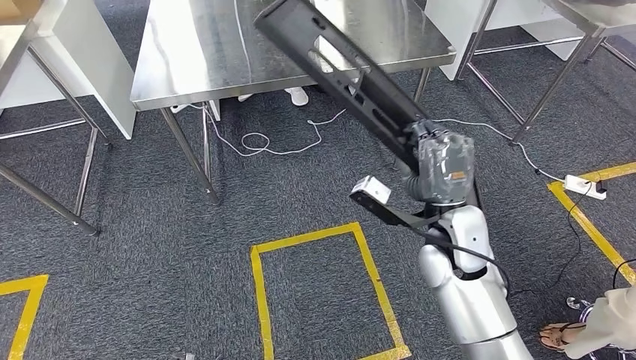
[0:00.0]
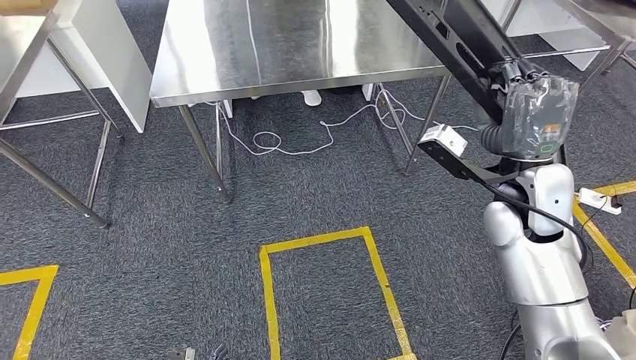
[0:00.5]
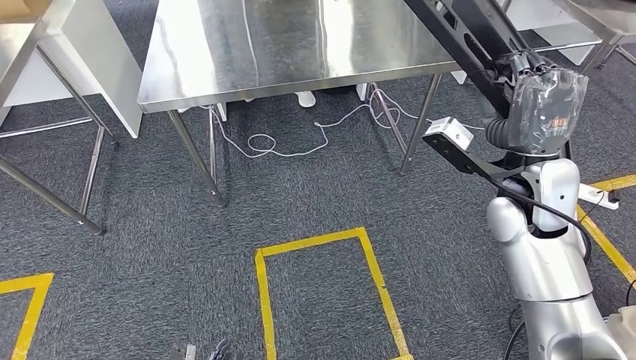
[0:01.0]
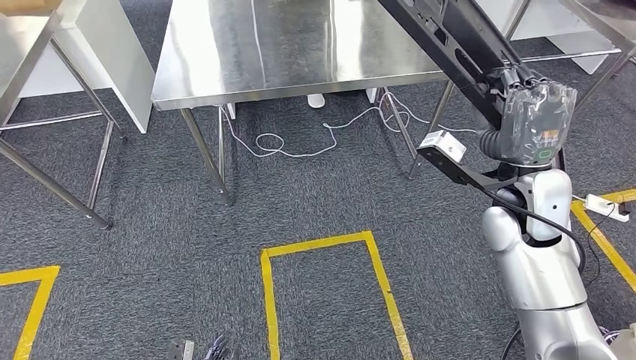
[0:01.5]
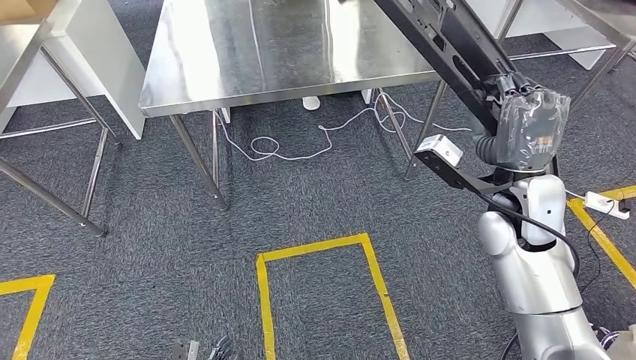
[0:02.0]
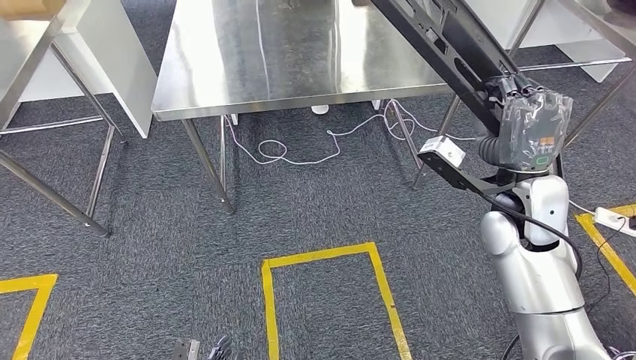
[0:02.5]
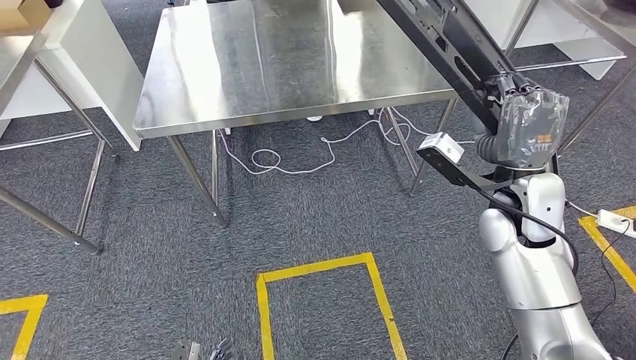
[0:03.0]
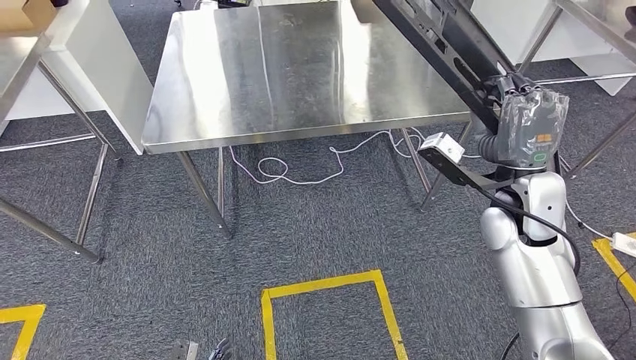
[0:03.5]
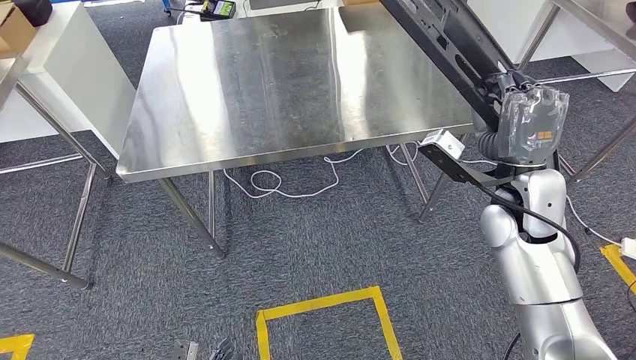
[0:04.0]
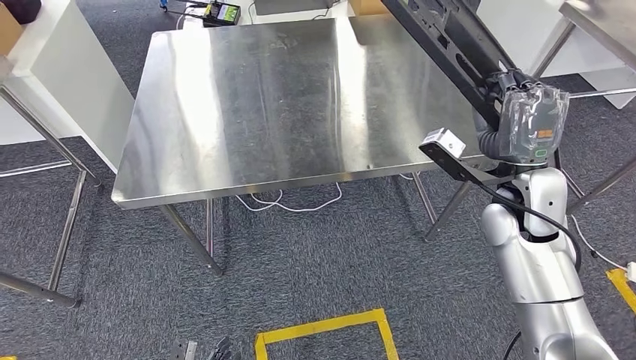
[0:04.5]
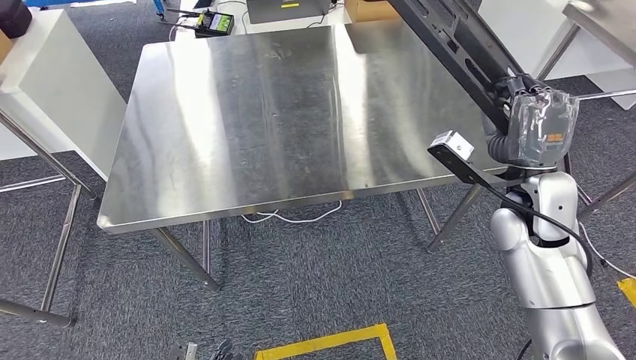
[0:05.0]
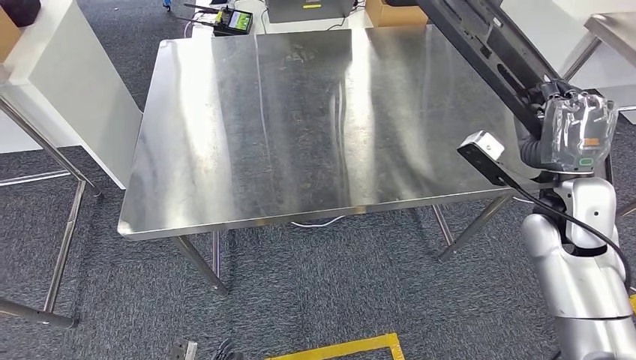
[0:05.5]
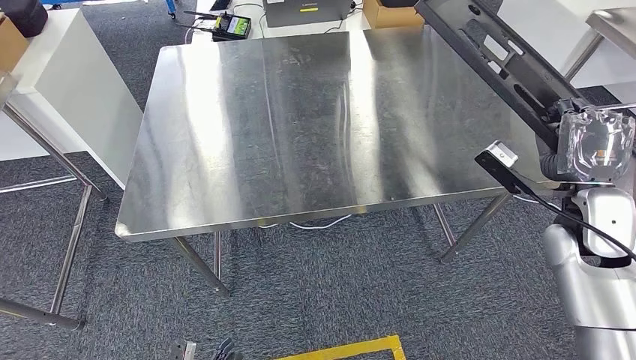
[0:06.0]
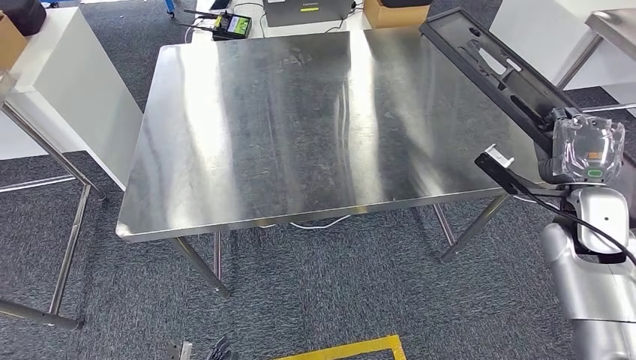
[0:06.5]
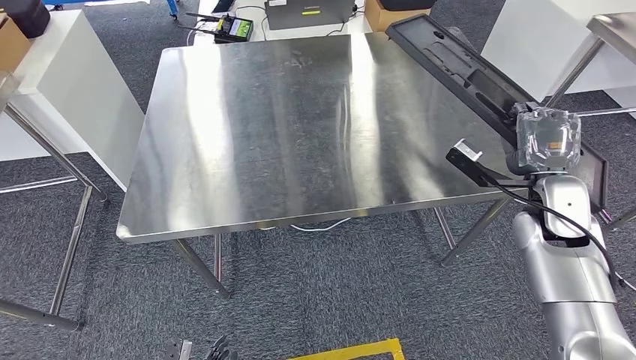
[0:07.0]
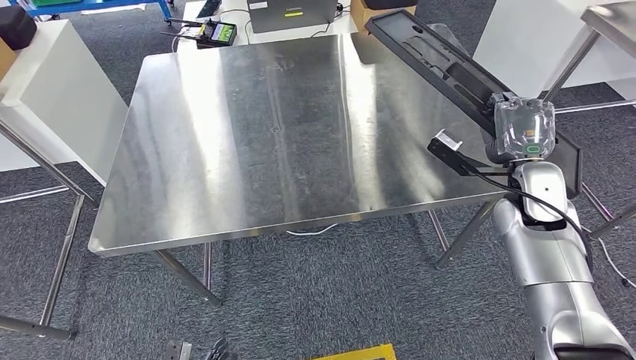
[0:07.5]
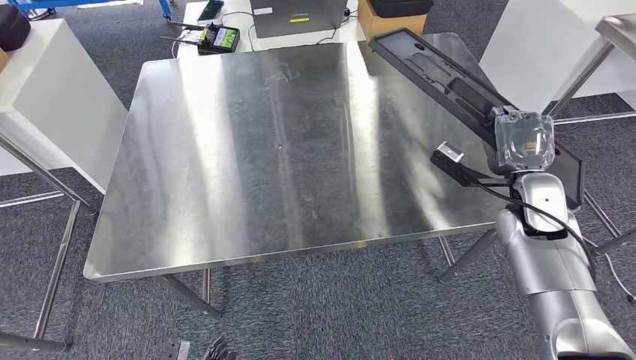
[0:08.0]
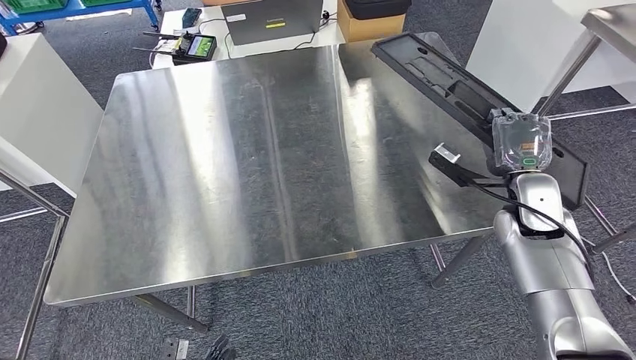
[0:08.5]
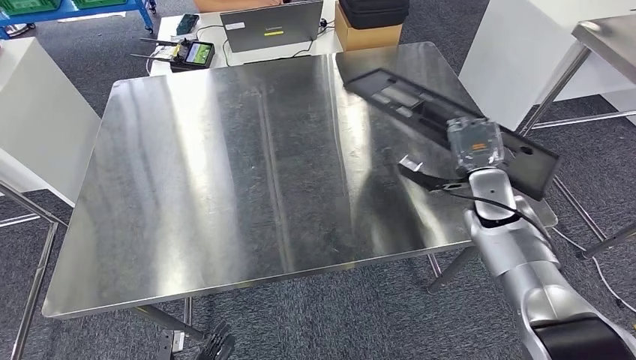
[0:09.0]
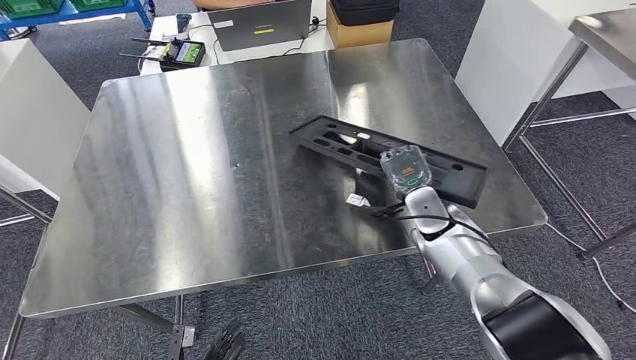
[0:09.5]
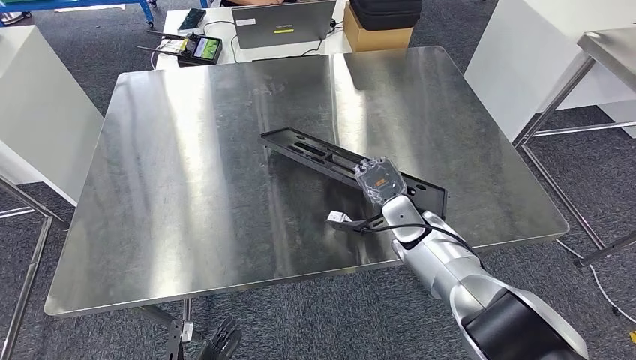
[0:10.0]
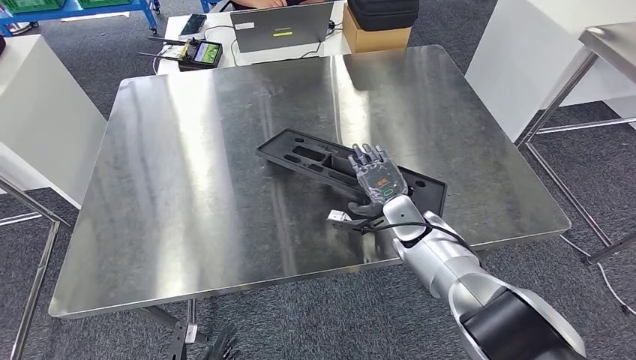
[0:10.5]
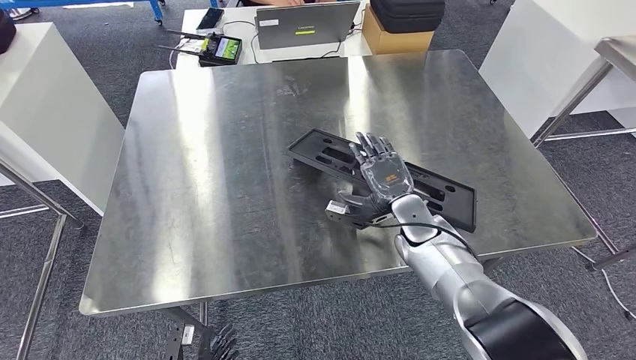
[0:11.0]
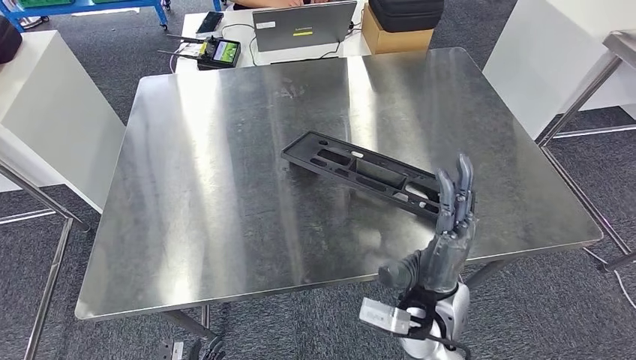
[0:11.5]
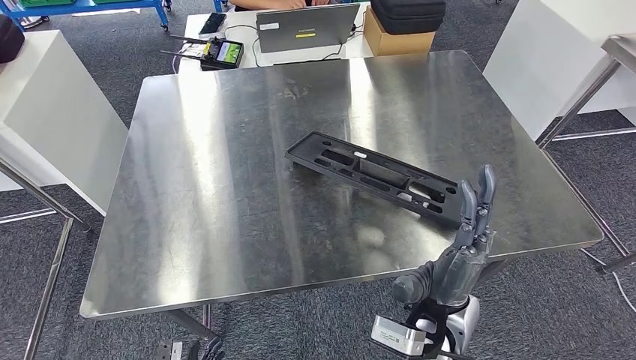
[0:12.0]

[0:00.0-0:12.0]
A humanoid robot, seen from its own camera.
Step, 0:00.0 to 0:04.5: Move the large material to the workbench.

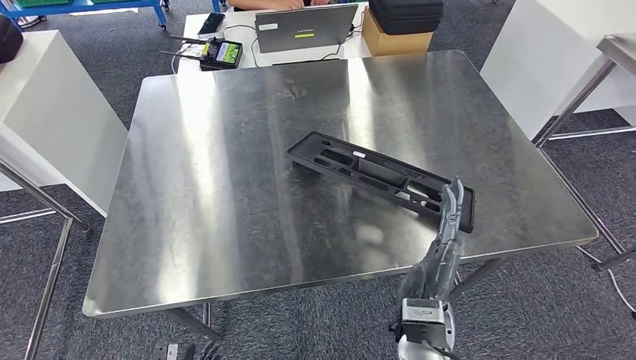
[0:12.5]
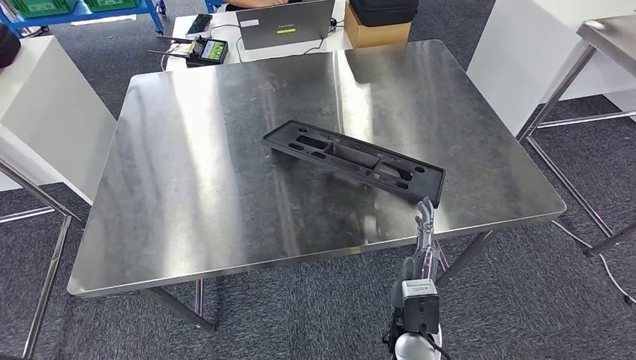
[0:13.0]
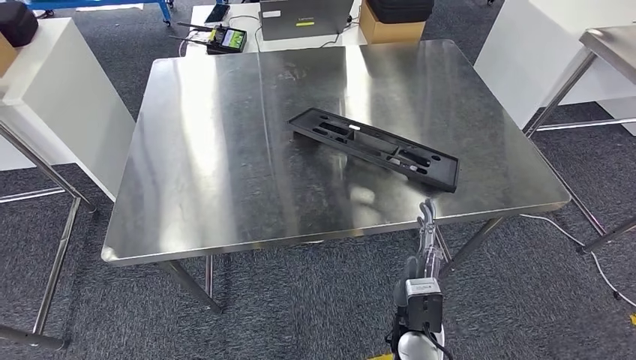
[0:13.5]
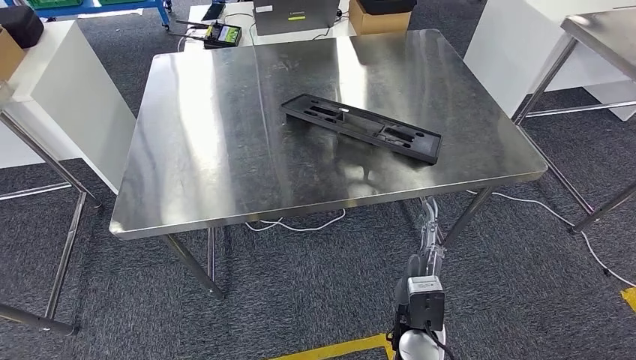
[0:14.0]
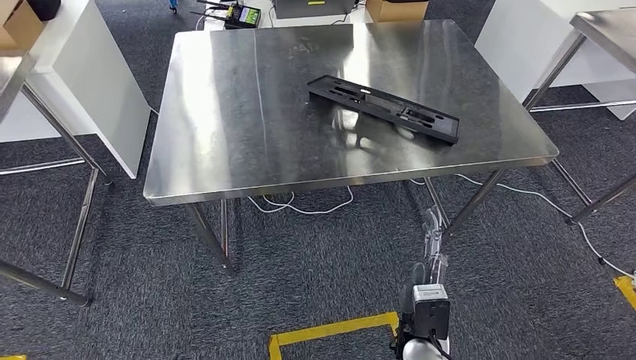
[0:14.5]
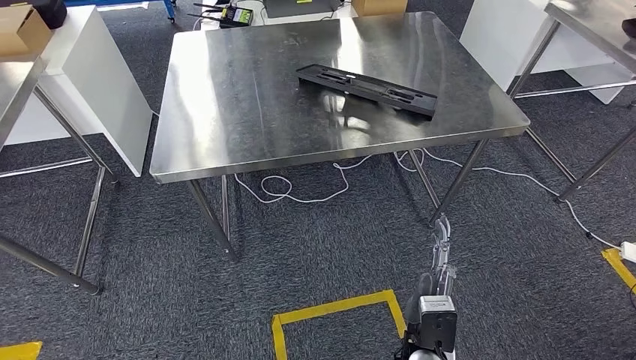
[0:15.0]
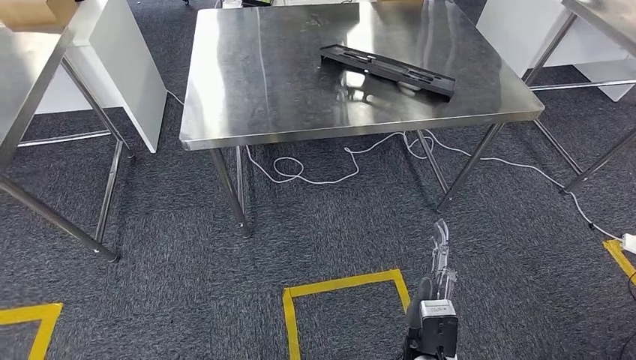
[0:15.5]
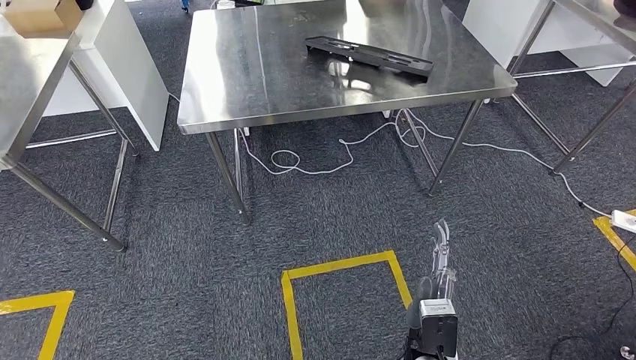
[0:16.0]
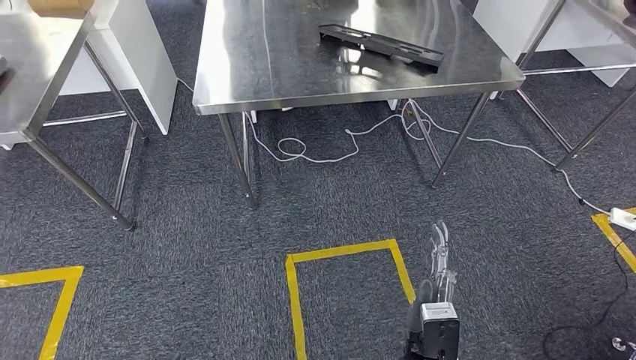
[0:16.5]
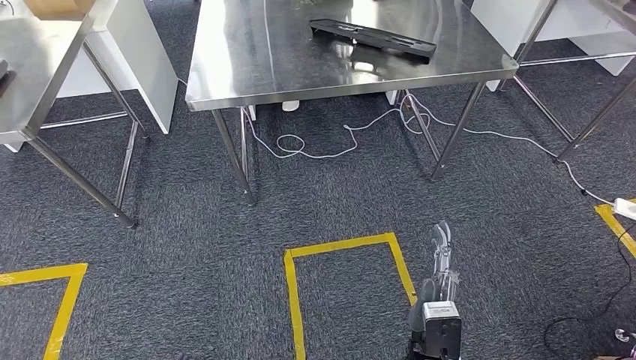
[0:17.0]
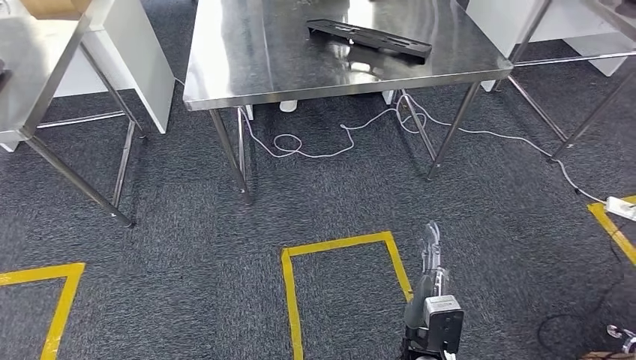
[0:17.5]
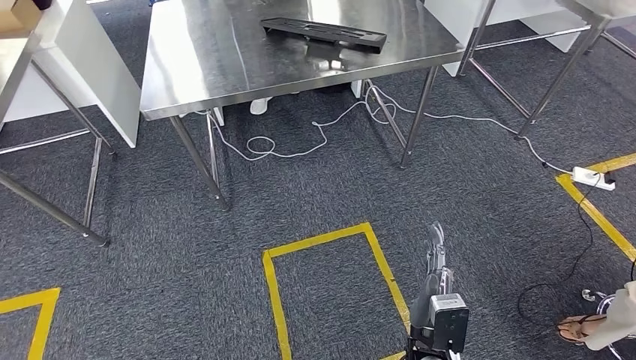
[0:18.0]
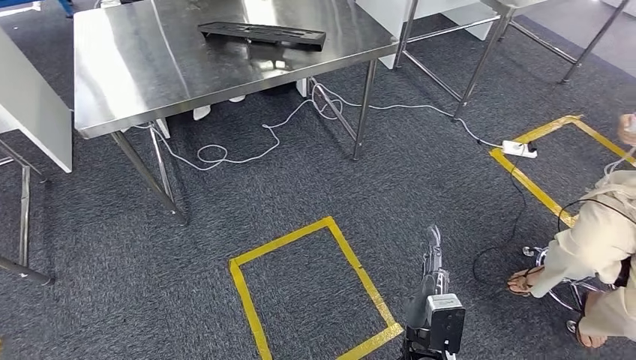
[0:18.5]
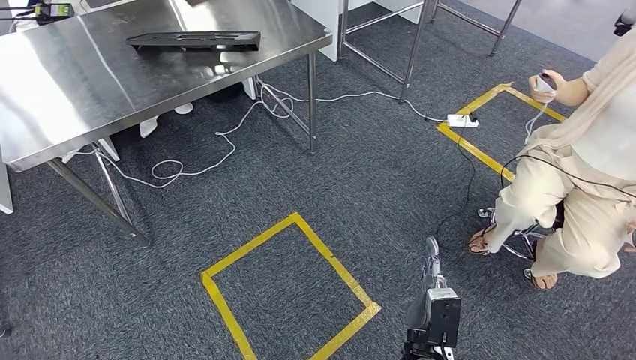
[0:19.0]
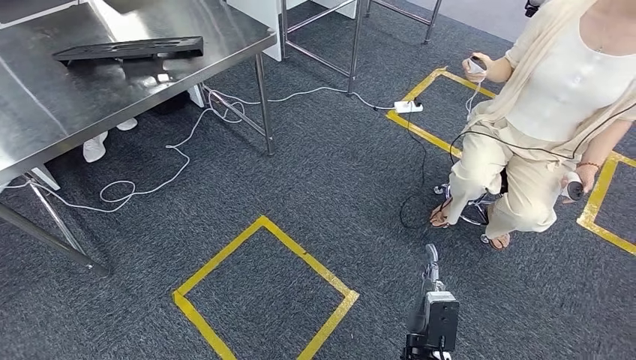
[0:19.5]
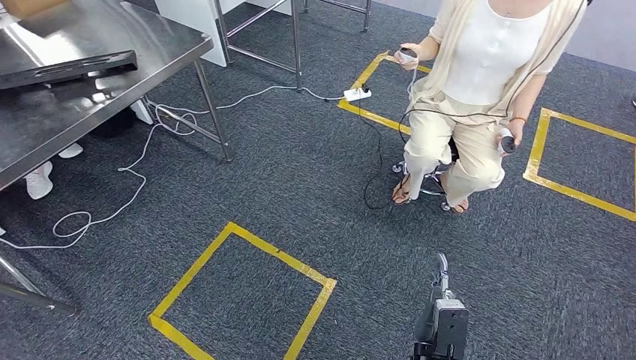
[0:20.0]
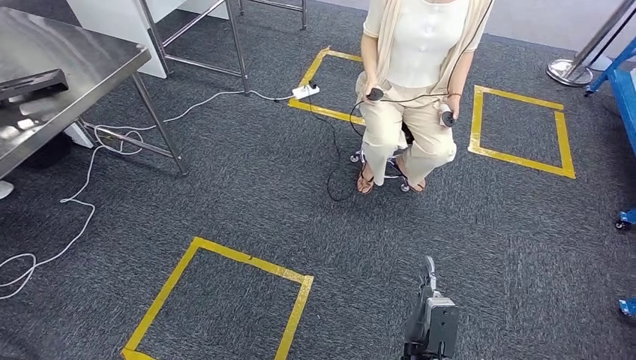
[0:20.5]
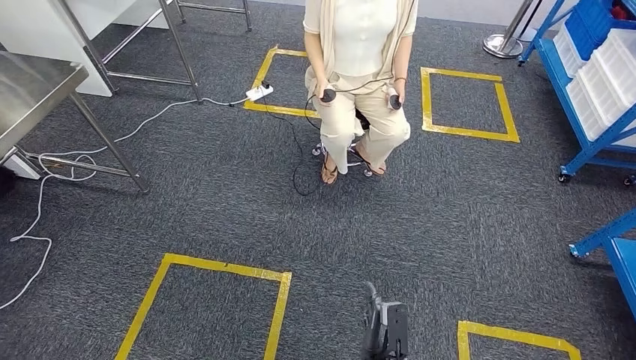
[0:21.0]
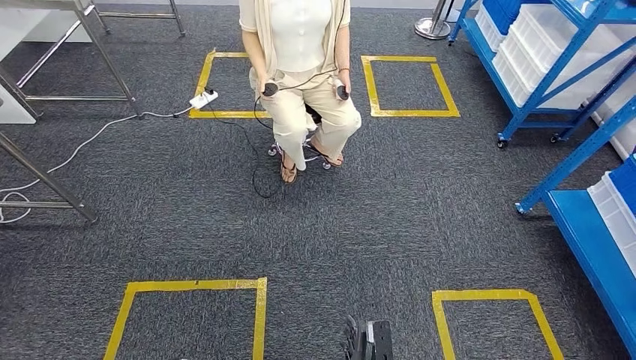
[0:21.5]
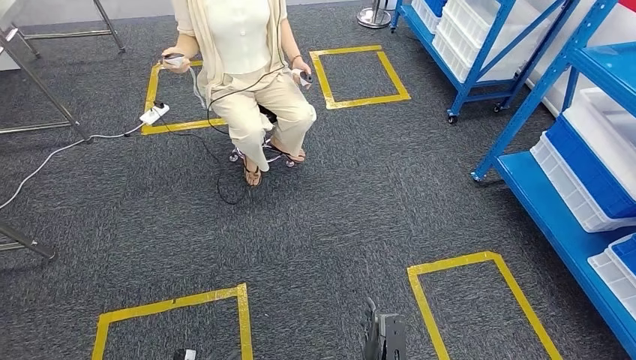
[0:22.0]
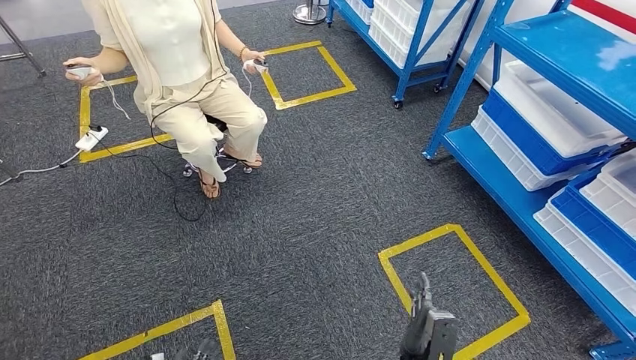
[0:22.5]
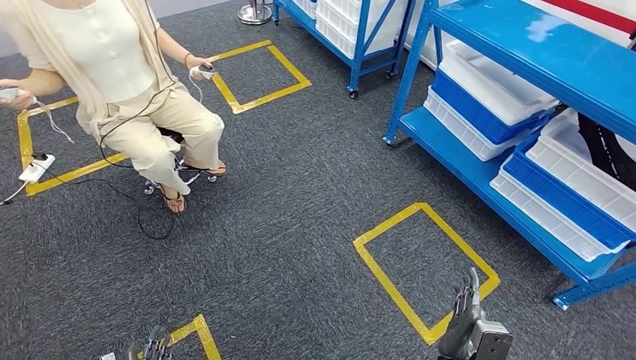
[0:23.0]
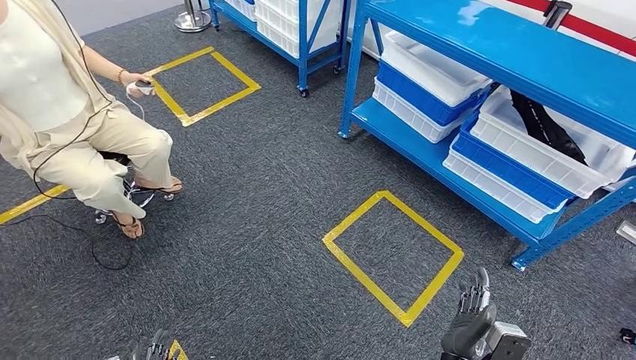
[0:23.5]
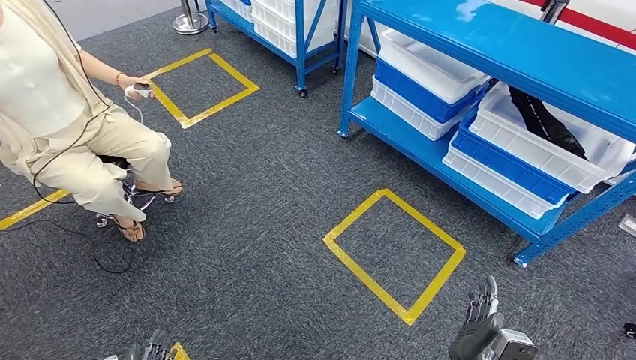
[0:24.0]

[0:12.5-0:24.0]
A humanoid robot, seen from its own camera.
Step, 0:12.5 to 0:16.0: Insert the large material into the corresponding slot on the workbench.
